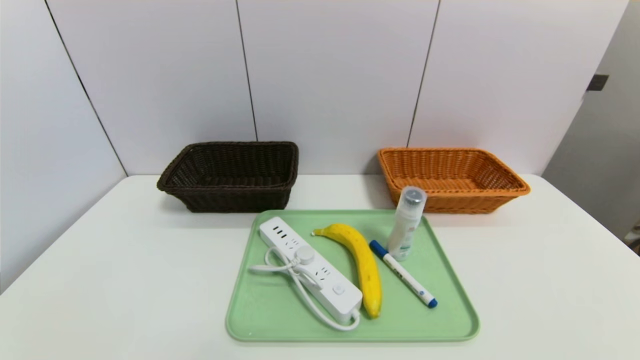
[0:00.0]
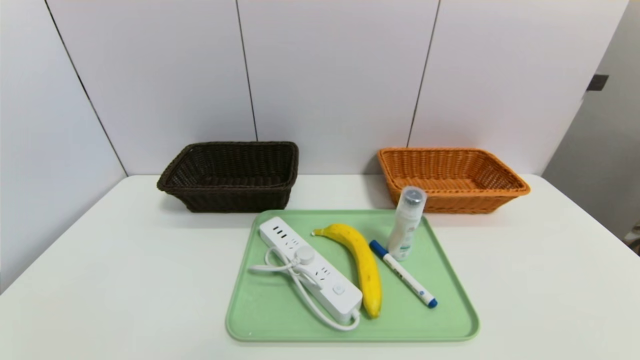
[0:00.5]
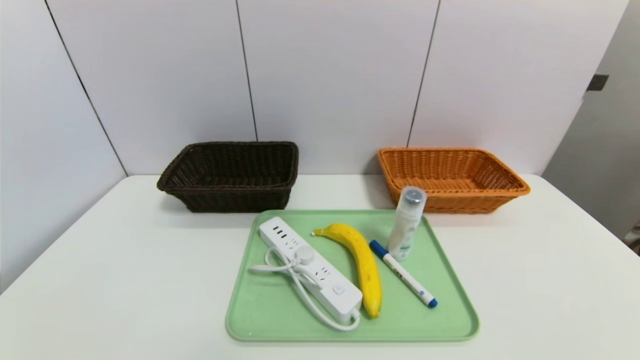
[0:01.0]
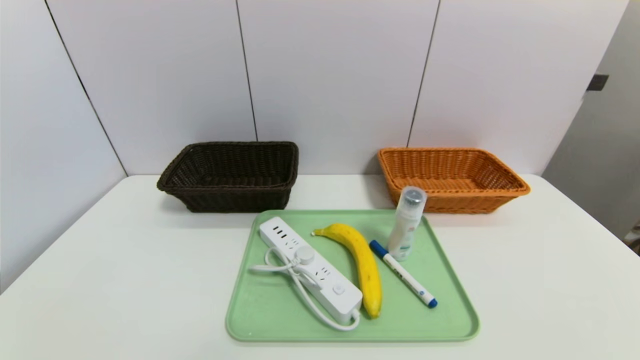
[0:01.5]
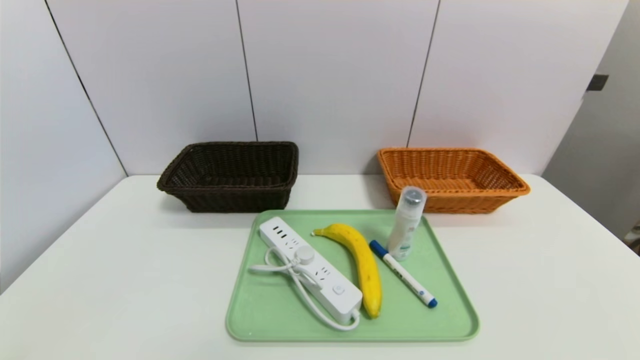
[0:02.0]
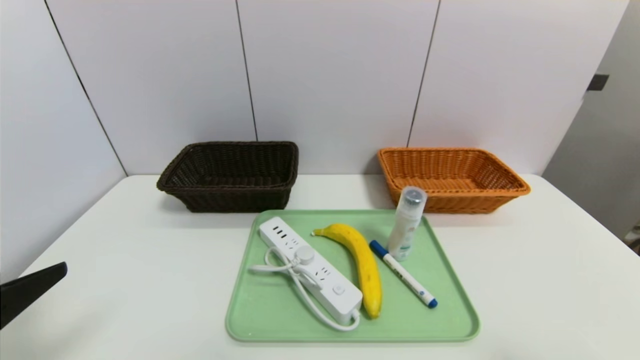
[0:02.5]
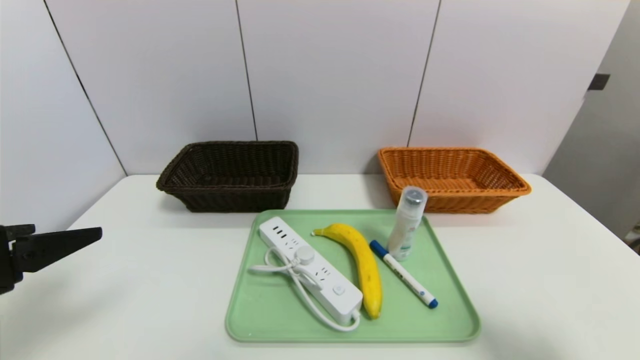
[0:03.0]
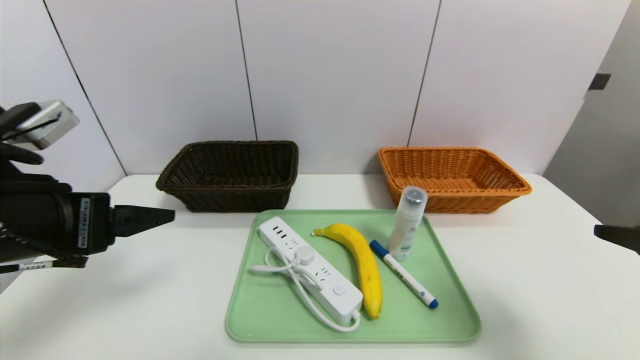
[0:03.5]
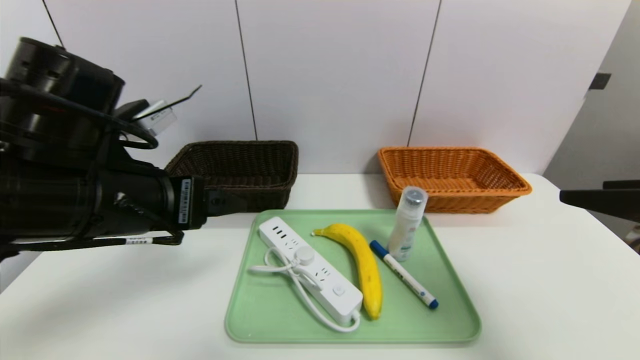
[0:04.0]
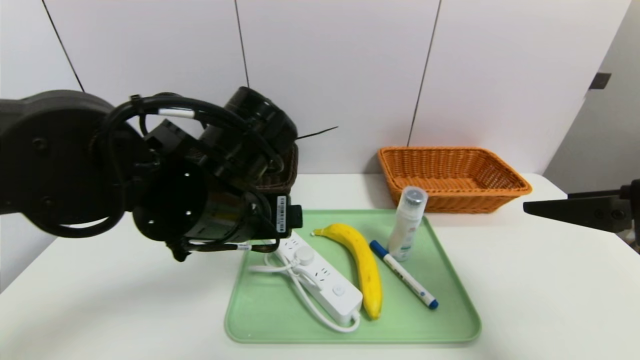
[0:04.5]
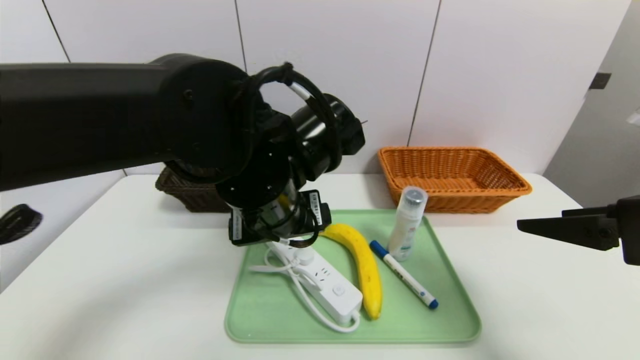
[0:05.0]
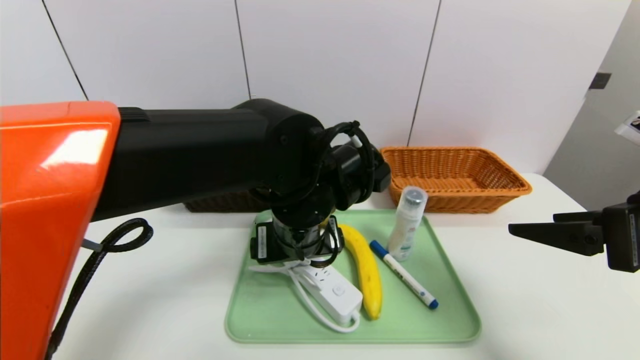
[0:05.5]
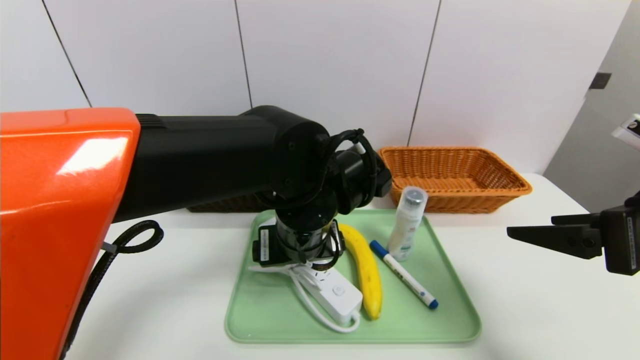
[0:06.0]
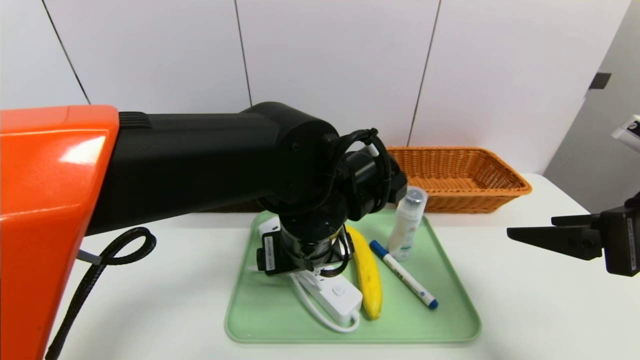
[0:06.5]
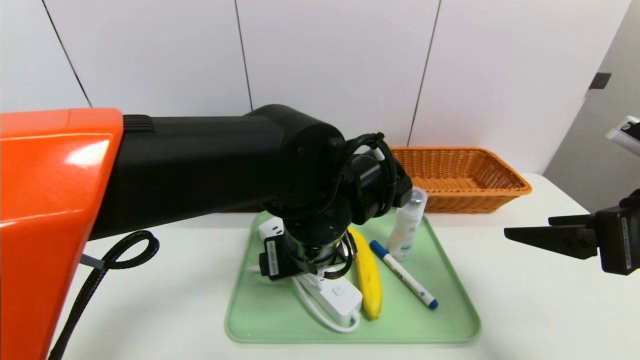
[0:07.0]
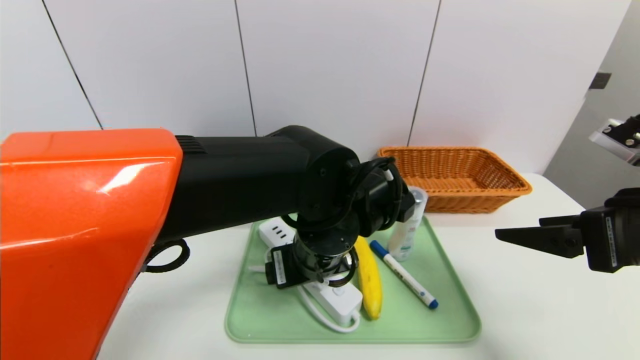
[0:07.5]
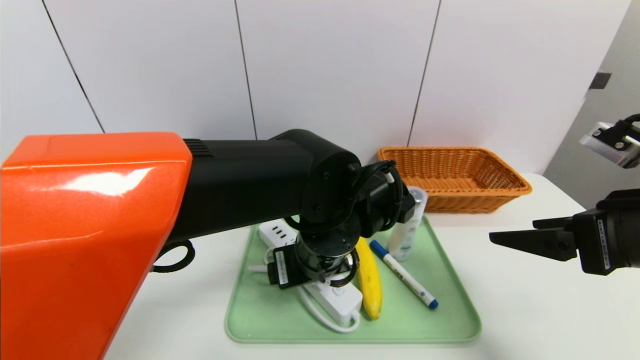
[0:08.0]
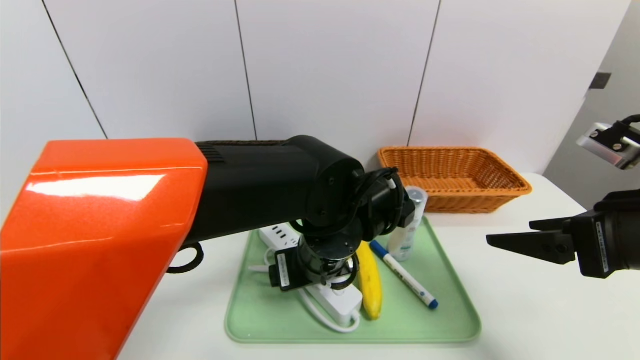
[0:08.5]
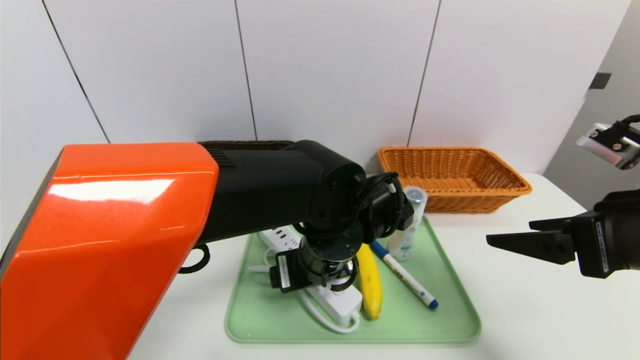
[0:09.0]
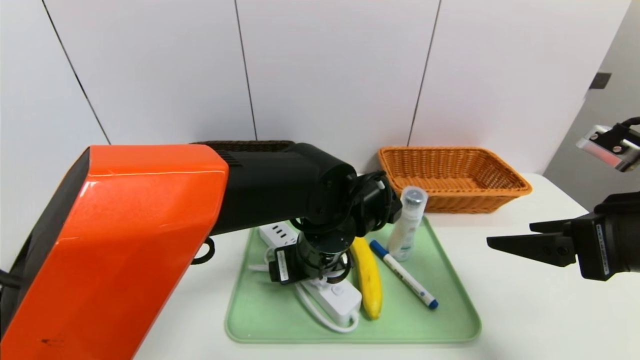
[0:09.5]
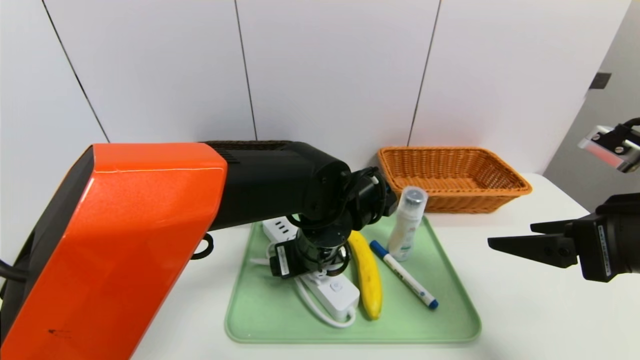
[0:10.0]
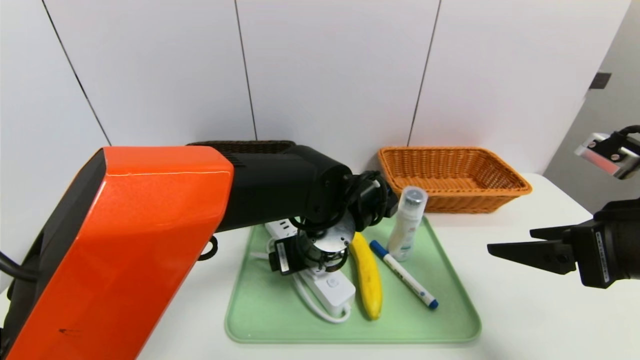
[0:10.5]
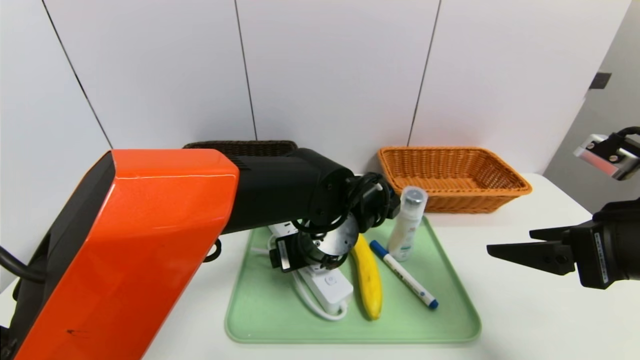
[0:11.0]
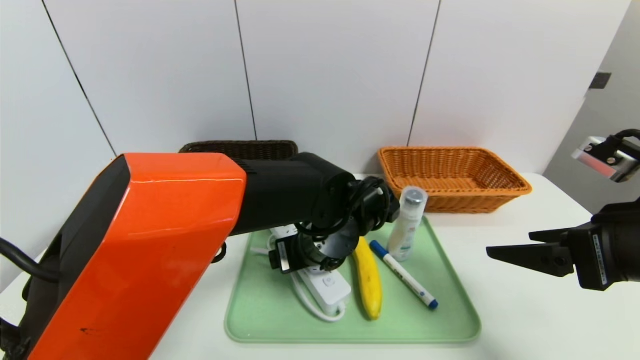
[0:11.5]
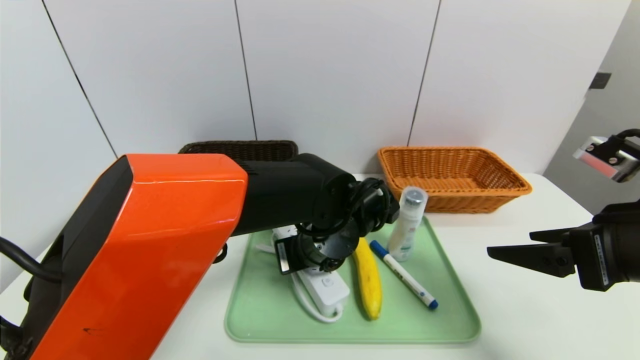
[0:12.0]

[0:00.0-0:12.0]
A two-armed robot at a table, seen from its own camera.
Task of the whole recording: place the food in the right basket with the right gripper, and place the non food items in the left basket with the left gripper.
0:02.0 to 0:04.0: The right gripper goes about 20 cm forward and upward; the left gripper is displaced forward, to the right and upward by approximately 25 cm.
0:04.0 to 0:06.0: The left gripper shifts roughly 20 cm to the right and downward, while the right gripper moves roughly 5 cm.
0:08.0 to 0:10.0: The grippers make only small movements.
0:10.0 to 0:12.0: The left gripper closes up.

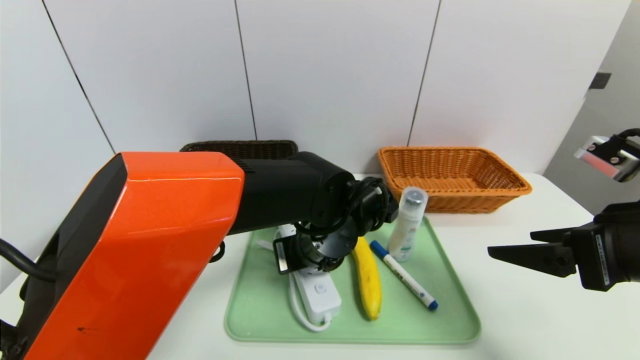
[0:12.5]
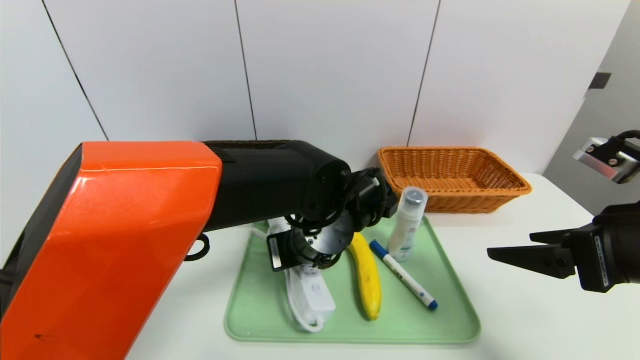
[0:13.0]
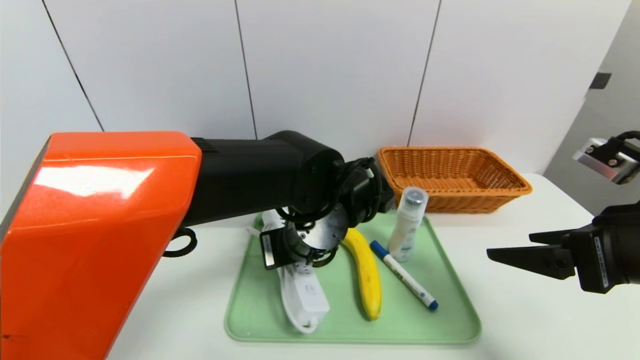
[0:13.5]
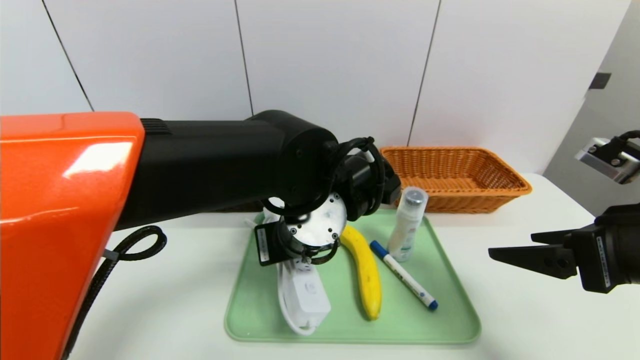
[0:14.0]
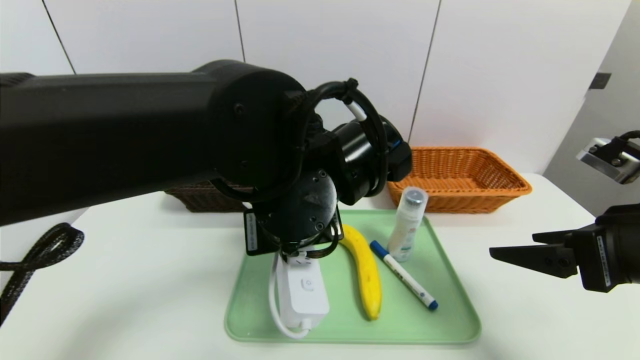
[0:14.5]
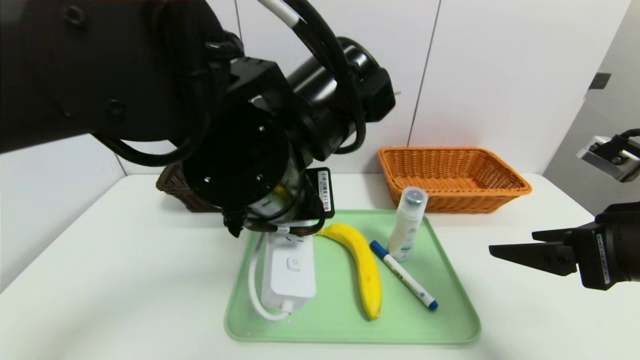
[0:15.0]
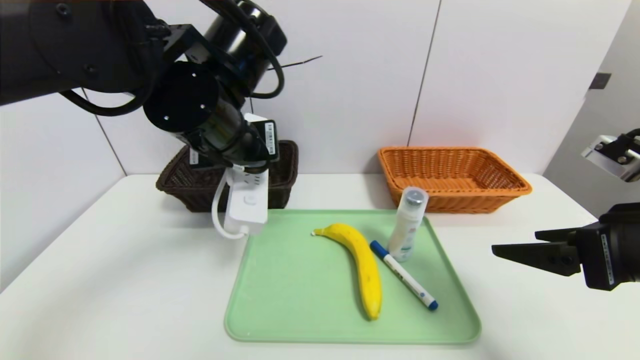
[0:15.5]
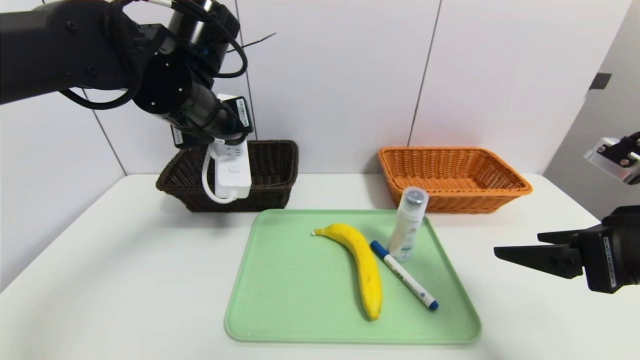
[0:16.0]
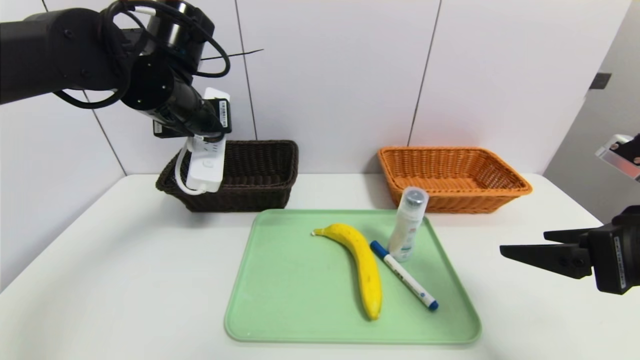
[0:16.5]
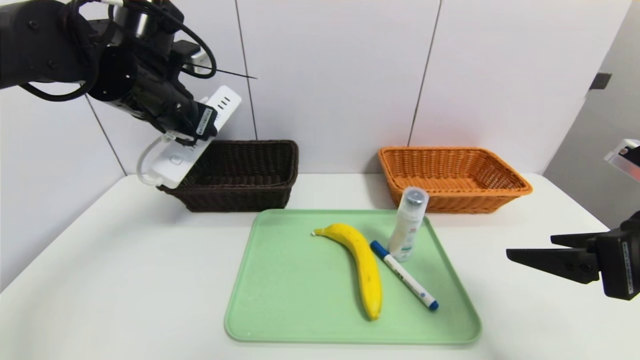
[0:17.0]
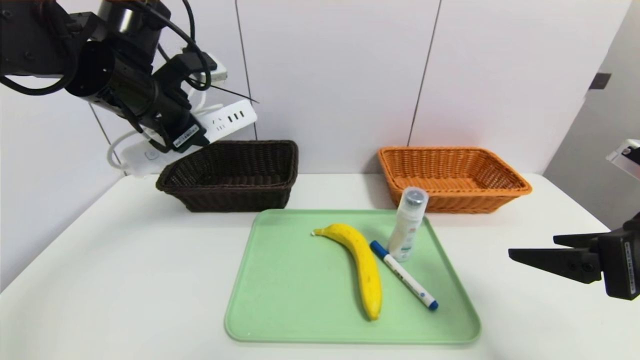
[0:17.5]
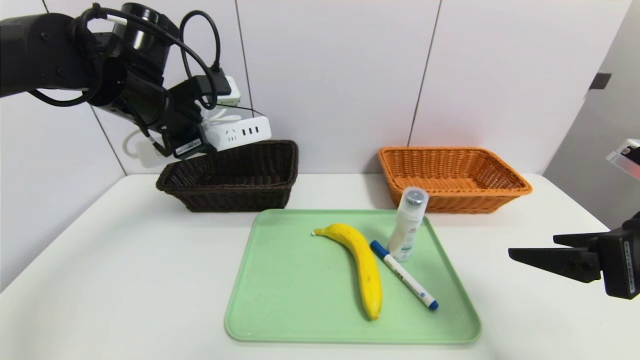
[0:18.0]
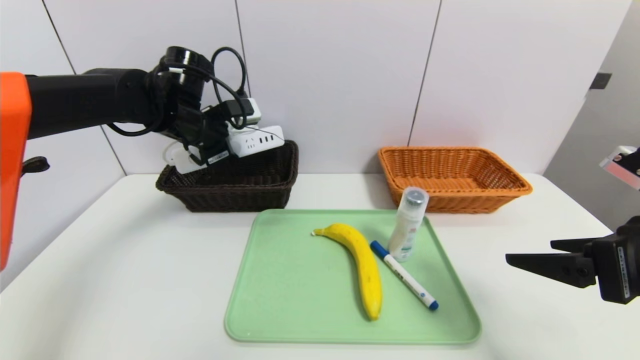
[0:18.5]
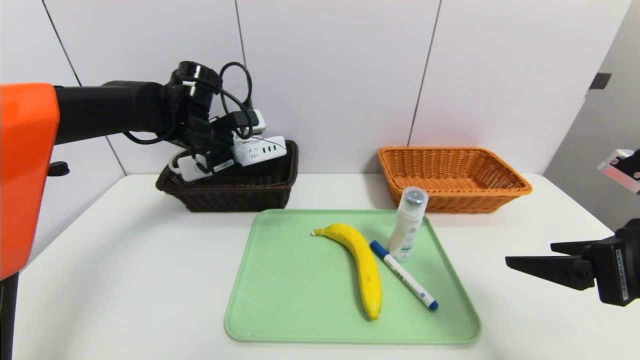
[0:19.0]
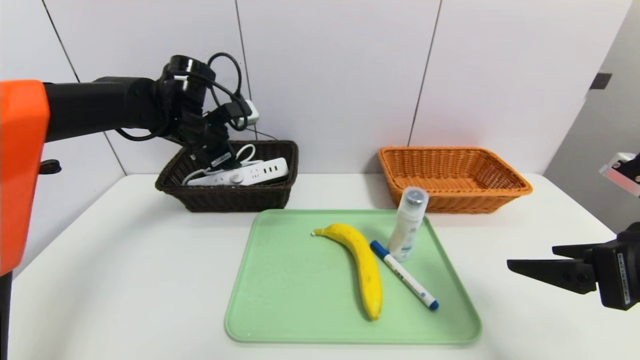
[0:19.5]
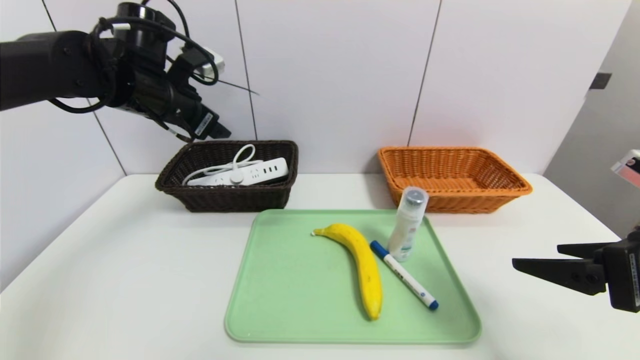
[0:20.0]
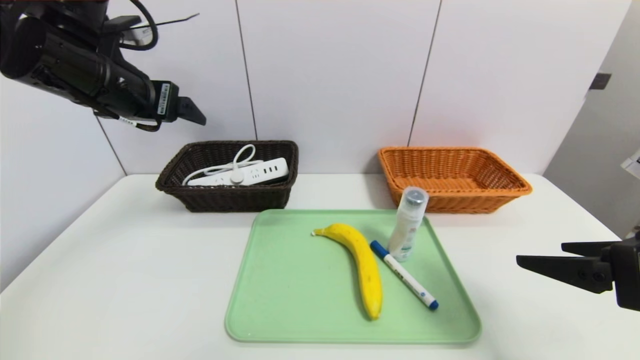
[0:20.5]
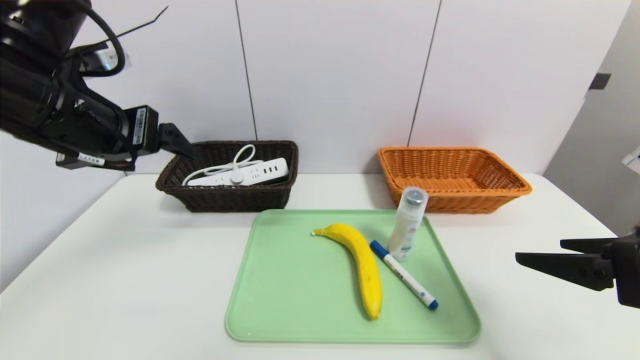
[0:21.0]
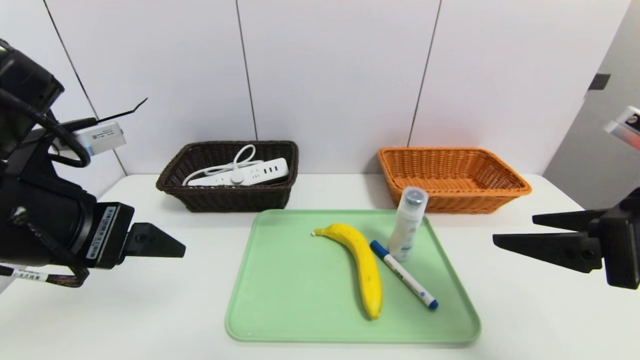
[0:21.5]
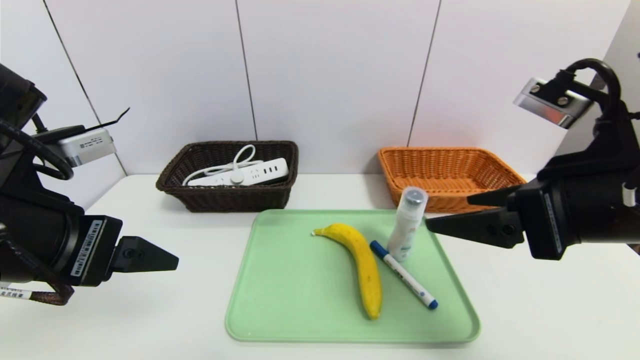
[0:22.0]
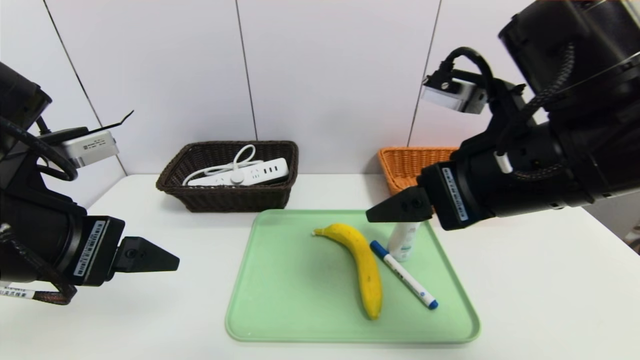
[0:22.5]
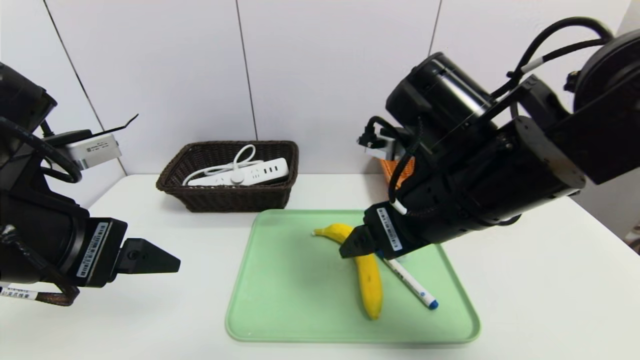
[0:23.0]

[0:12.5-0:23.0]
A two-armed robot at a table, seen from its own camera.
Task of the whole recording: place the food in the right basket with the right gripper, and place the non food items in the left basket with the left gripper.
Step, 0:12.5 to 0:19.5: Grasp the power strip and put it in the left basket.
0:12.5 to 0:14.5: The left gripper goes some 10 cm upward and backward.
0:14.5 to 0:16.5: The left gripper goes roughly 20 cm to the left and forward.
0:16.5 to 0:19.0: The left gripper moves forward and downward, approximately 10 cm.
0:19.0 to 0:21.0: The left gripper travels backward and upward by approximately 20 cm, and opens up.
0:21.0 to 0:23.0: The left gripper shifts some 10 cm backward; the right gripper travels to the left and forward by approximately 20 cm.
